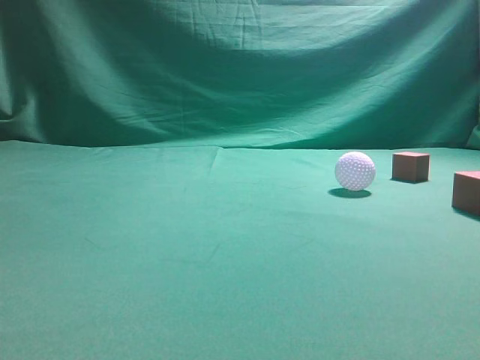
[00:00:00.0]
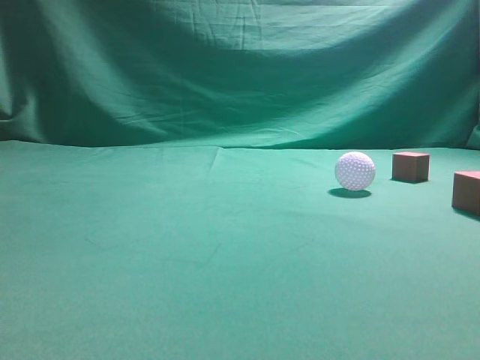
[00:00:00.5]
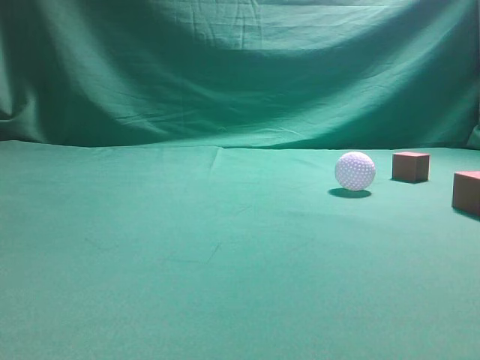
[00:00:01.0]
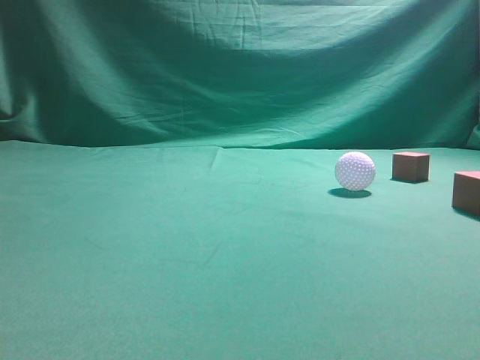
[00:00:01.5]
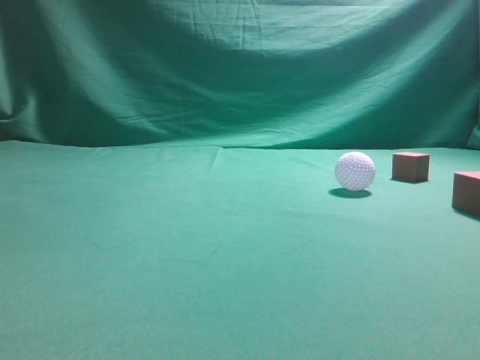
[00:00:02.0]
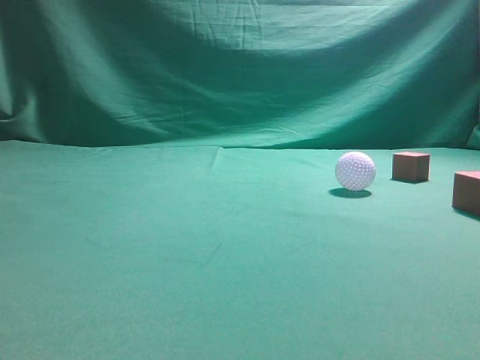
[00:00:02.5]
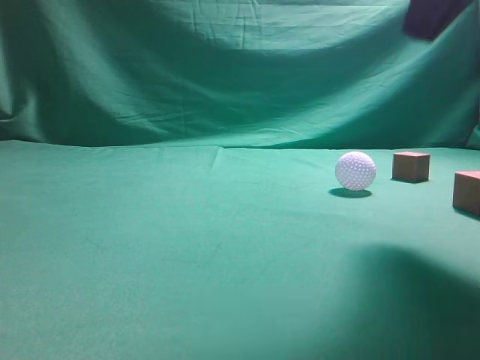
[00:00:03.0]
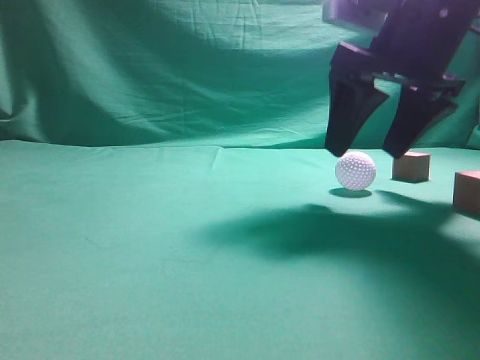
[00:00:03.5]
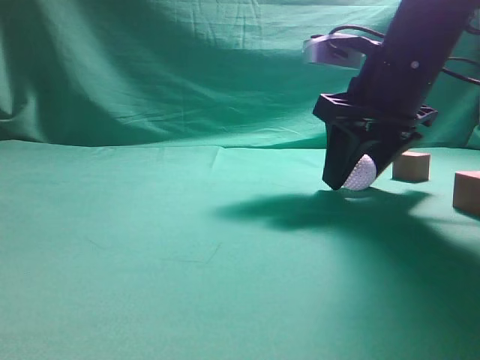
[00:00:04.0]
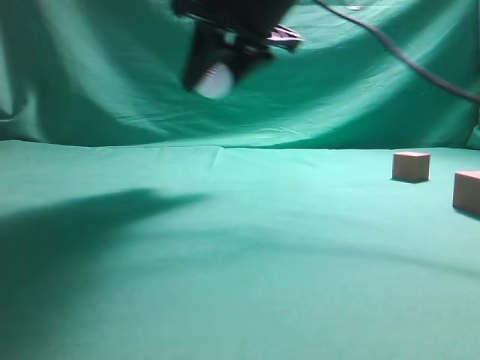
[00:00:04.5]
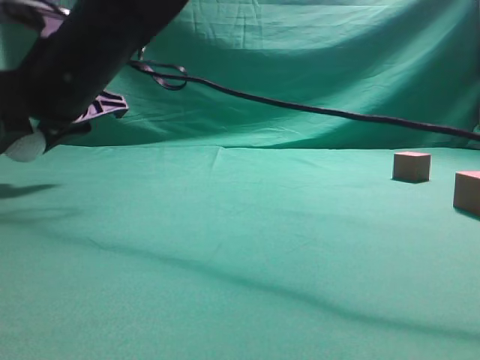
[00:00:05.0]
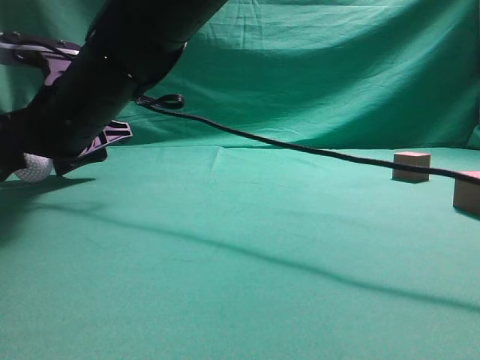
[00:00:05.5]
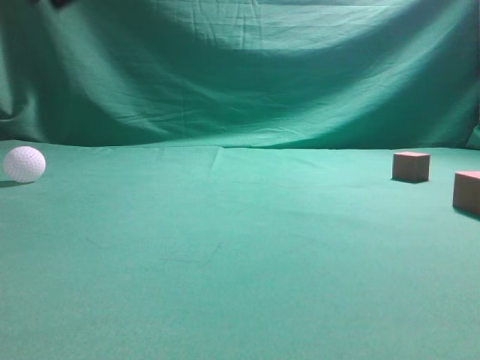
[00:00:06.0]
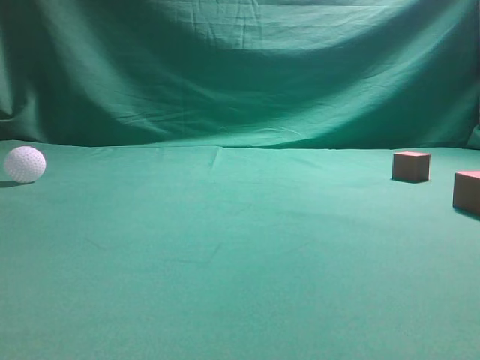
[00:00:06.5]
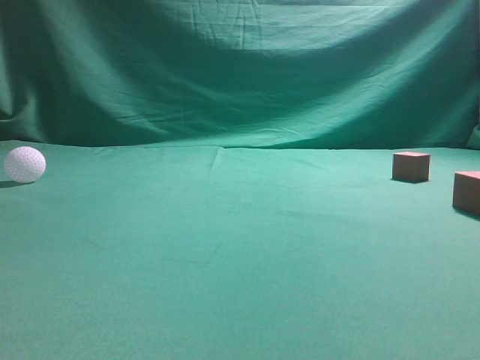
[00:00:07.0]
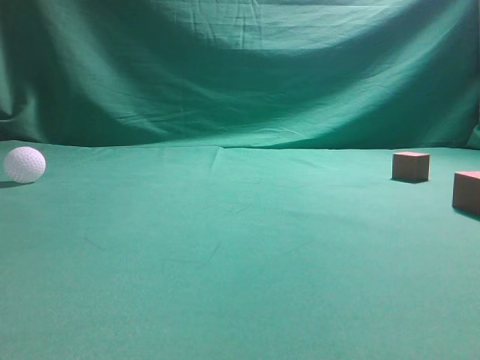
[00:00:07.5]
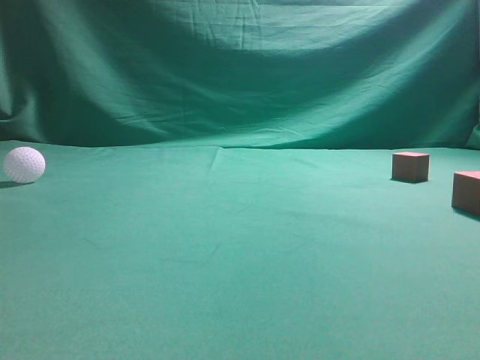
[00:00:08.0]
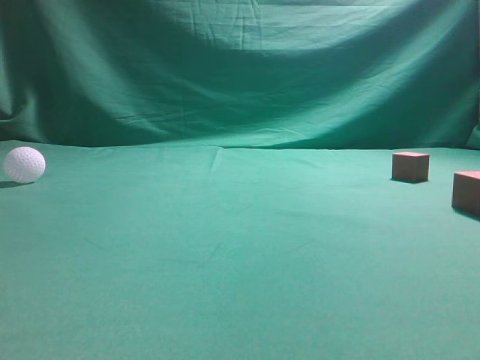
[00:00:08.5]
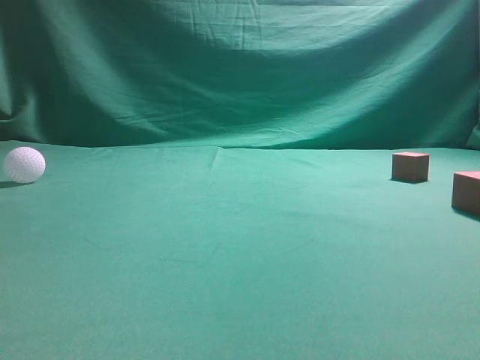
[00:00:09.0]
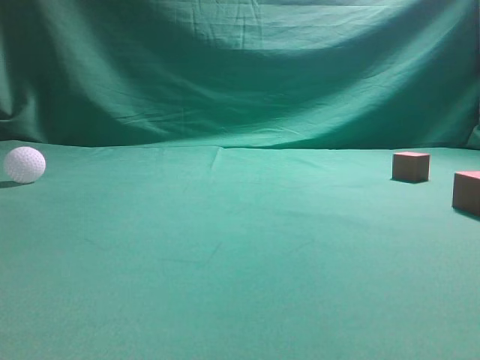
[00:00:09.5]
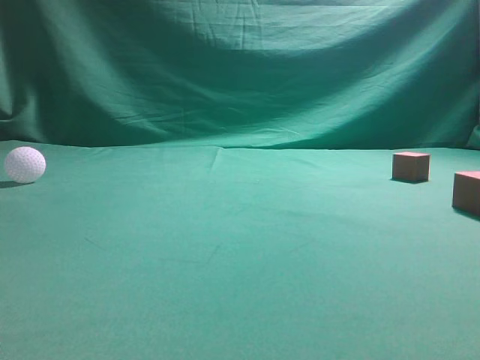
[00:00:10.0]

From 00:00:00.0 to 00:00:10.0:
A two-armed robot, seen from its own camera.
Step, from 00:00:00.0 to 00:00:04.0: Grasp the spherical object on the right side.
From 00:00:02.0 to 00:00:04.0: The right gripper goes approximately 35 cm forward, to the left and downward, and opens its fingers.
From 00:00:04.0 to 00:00:06.0: The right gripper heads to the left and upward, covering some 25 cm, and closes.
